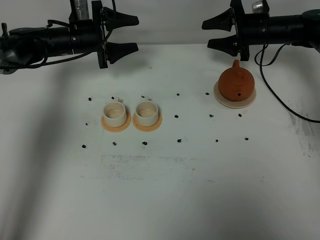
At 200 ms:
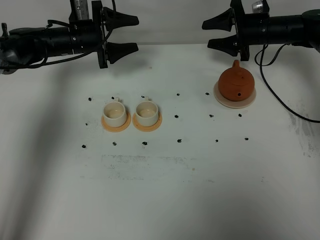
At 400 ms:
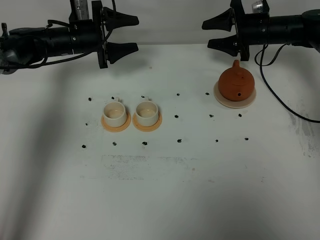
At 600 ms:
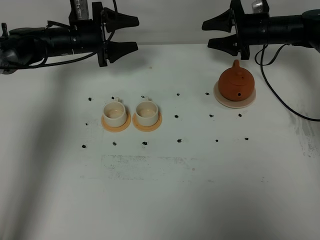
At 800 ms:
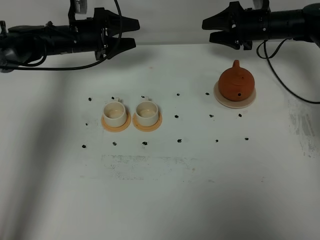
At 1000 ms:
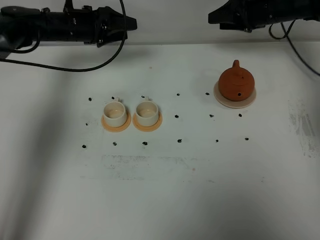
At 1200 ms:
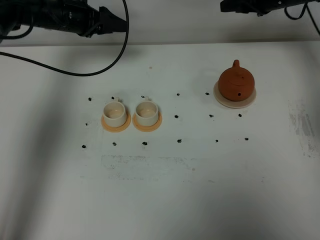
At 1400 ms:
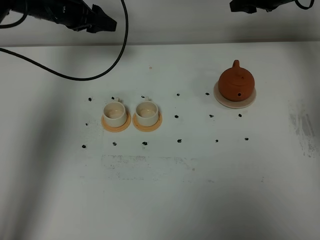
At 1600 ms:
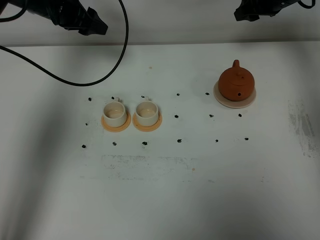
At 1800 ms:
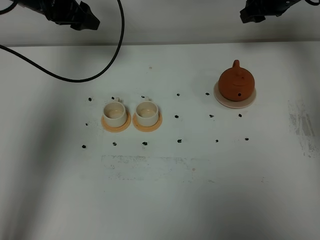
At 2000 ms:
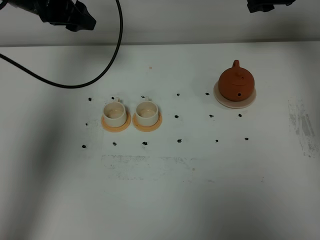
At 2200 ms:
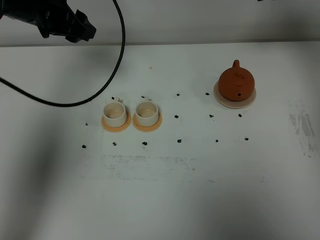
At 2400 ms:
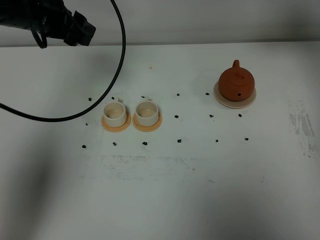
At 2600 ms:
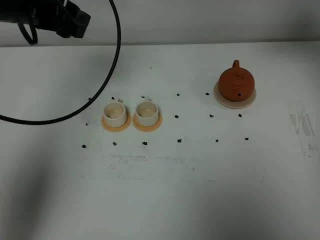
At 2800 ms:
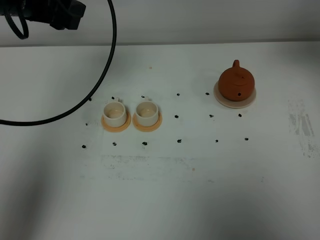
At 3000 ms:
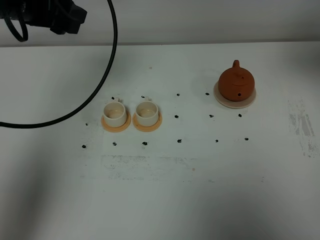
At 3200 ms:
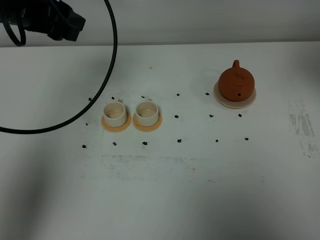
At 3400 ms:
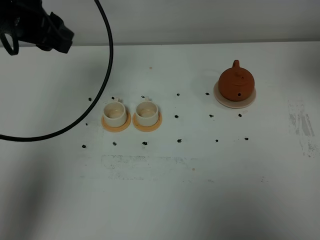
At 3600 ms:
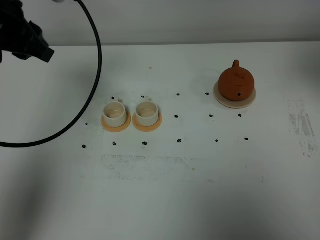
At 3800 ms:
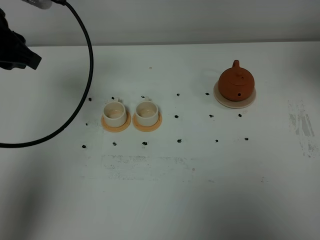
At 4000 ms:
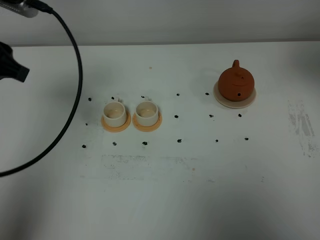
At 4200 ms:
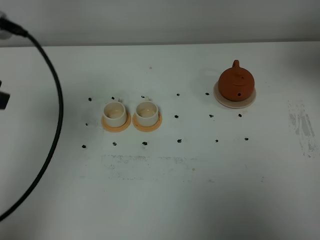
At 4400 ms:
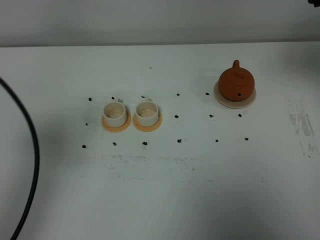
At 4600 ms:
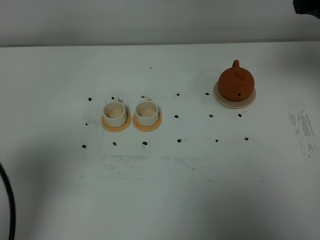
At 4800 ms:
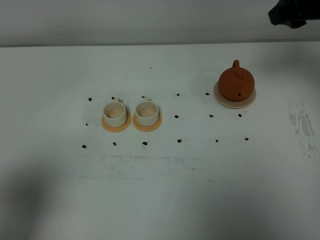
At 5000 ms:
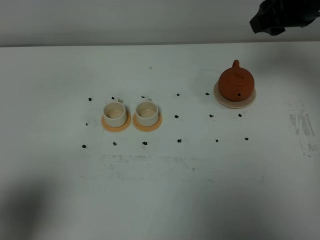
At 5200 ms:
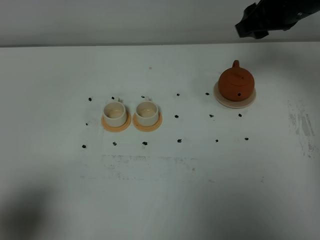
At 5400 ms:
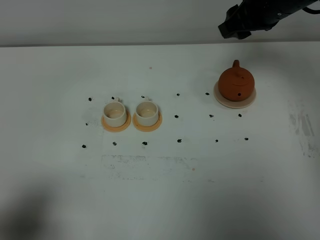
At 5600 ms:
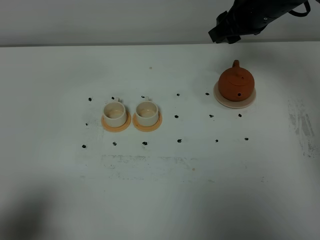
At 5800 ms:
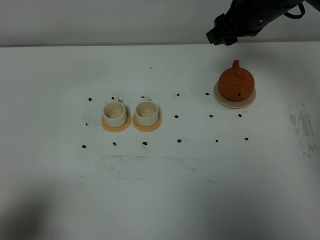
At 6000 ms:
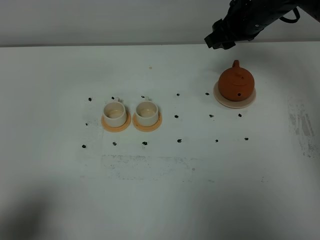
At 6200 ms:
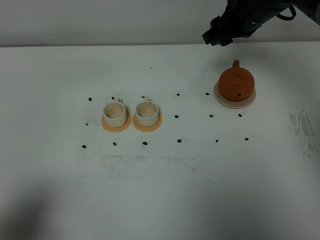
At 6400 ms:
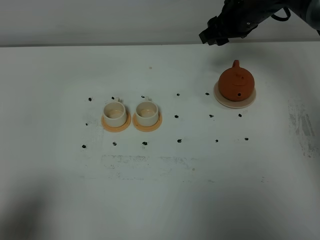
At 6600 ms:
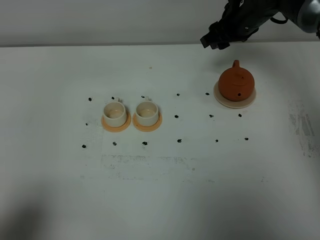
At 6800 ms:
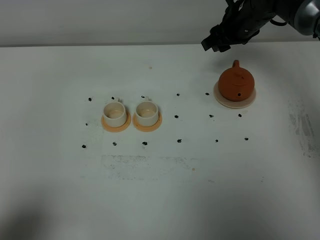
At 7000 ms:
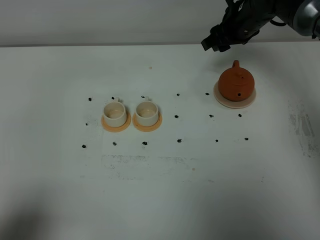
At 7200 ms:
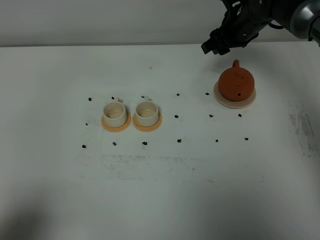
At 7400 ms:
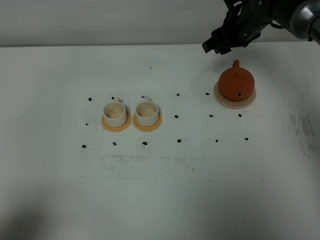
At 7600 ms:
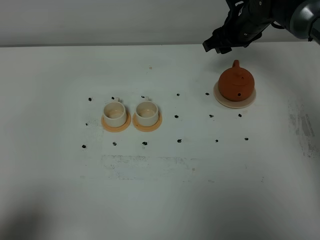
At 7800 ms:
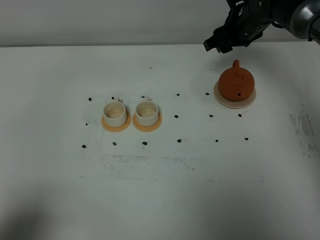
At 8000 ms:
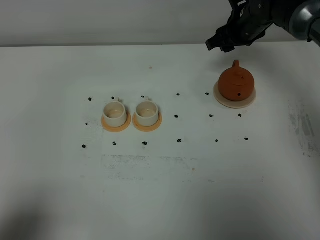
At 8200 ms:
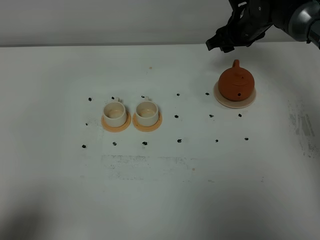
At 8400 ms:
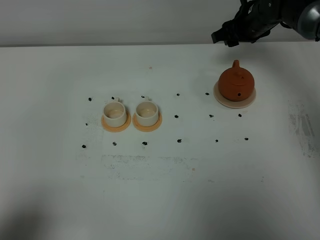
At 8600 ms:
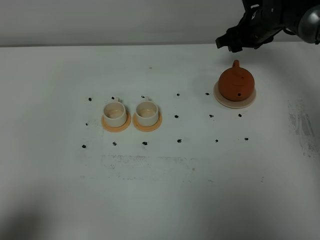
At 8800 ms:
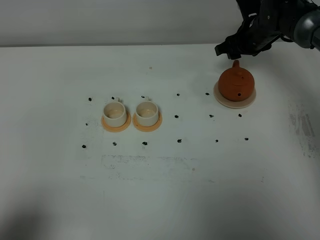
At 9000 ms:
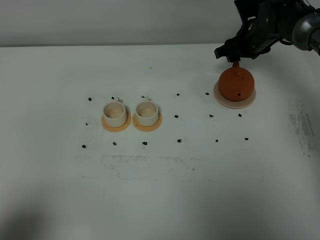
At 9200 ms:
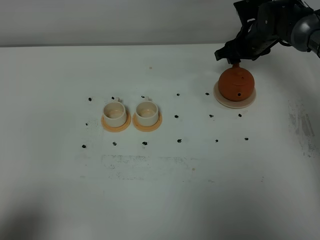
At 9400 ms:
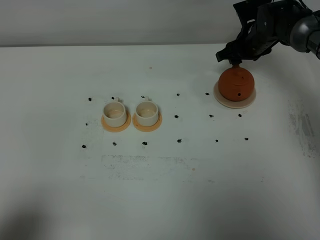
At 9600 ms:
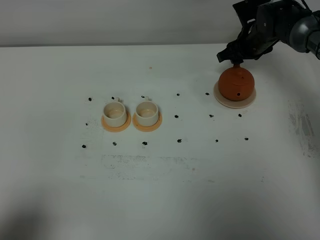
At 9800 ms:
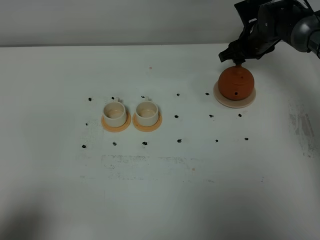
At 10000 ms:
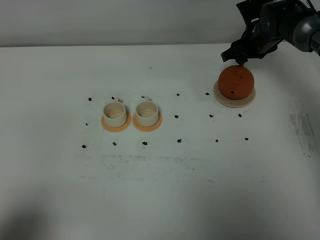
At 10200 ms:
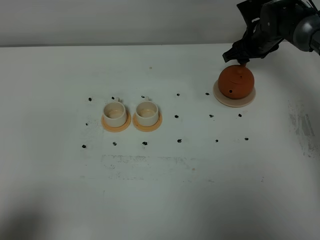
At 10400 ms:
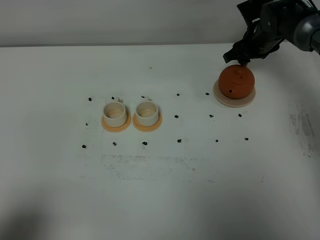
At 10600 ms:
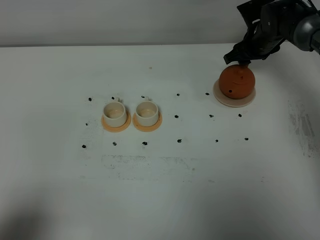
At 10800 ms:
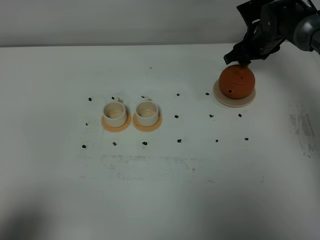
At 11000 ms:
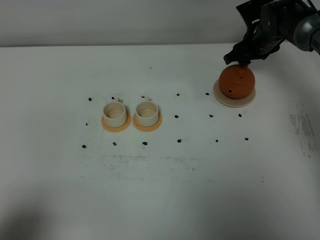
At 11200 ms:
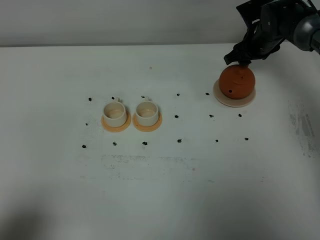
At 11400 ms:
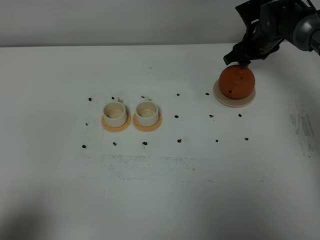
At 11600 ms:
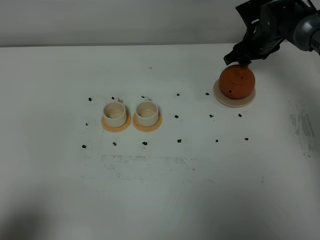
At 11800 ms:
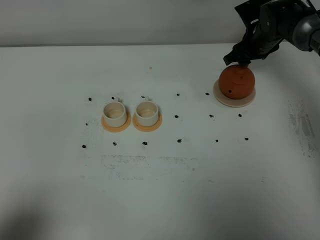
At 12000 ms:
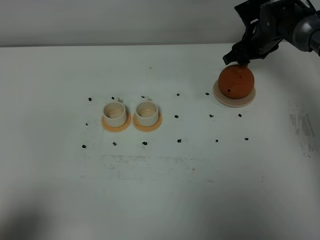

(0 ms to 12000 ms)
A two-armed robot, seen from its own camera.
Task of the whole recording: grasp the brown teapot and pour the tea into the two white teacups one by one, put the brown teapot back in its original place.
0 ms - 1600 ms: The grippers both shift upward by about 10 cm.
1600 ms - 3000 ms: The right gripper is displaced backward and upward by approximately 35 cm. Meanwhile the left gripper travels backward and upward by about 20 cm.
3000 ms - 4400 ms: The left gripper shifts about 20 cm backward, and closes its fingers.
4400 ms - 6000 ms: The right gripper is displaced downward, forward and to the left by some 20 cm; the left gripper travels backward and downward by some 15 cm.
6000 ms - 7600 ms: The right gripper goes about 5 cm downward.
7600 ms - 9000 ms: The right gripper goes about 5 cm downward.
9000 ms - 10400 ms: The grippers move only a little.
10400 ms - 12000 ms: The two grippers keep their place.

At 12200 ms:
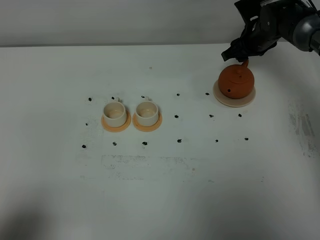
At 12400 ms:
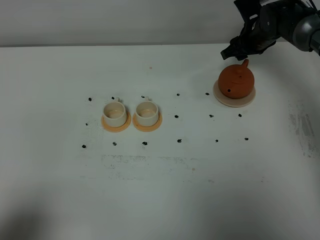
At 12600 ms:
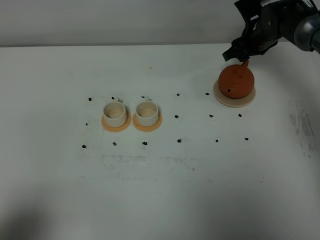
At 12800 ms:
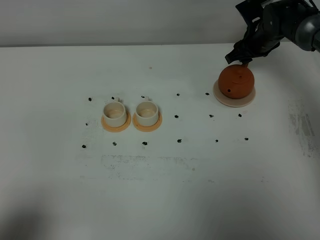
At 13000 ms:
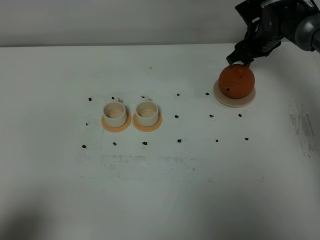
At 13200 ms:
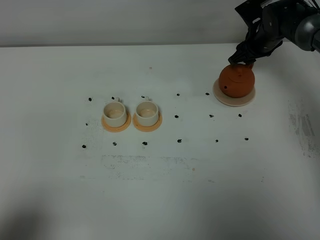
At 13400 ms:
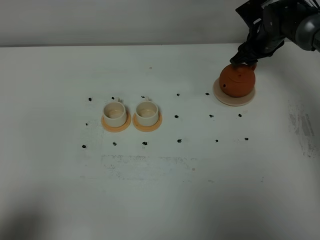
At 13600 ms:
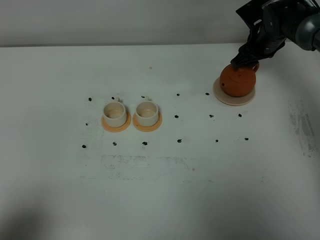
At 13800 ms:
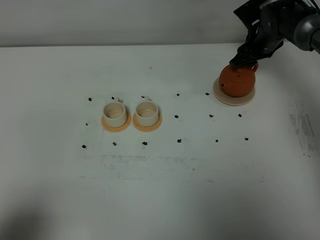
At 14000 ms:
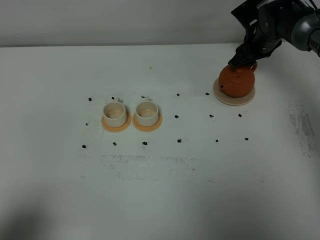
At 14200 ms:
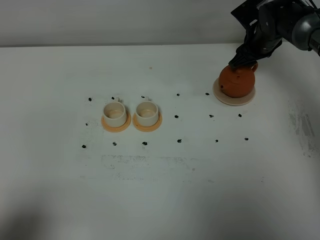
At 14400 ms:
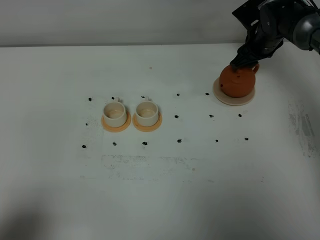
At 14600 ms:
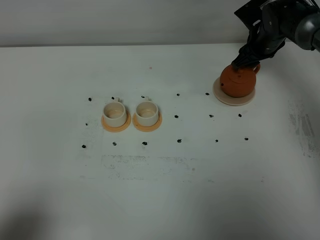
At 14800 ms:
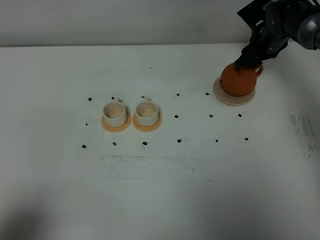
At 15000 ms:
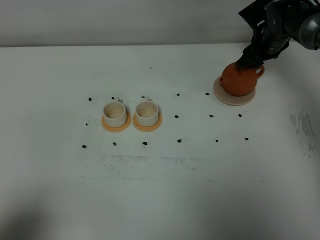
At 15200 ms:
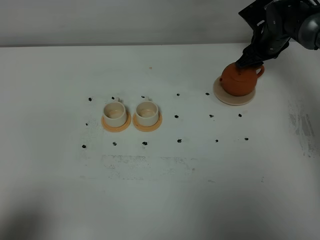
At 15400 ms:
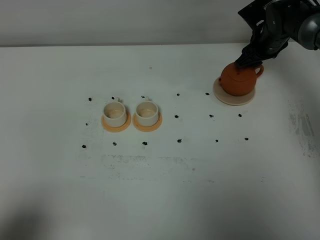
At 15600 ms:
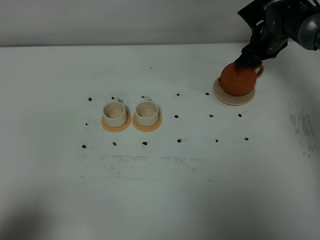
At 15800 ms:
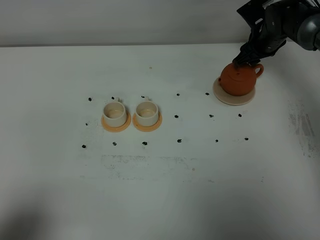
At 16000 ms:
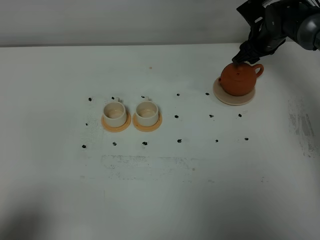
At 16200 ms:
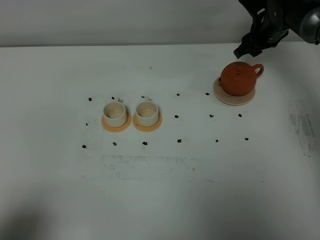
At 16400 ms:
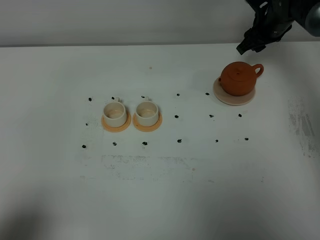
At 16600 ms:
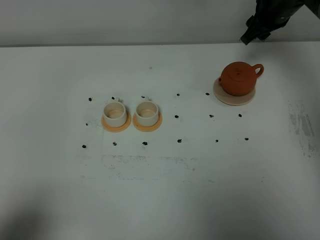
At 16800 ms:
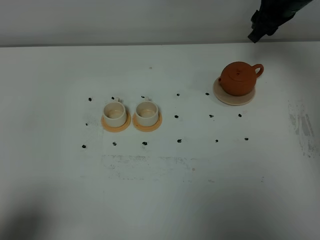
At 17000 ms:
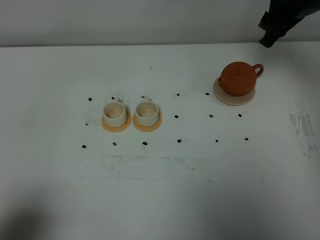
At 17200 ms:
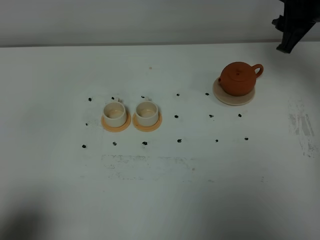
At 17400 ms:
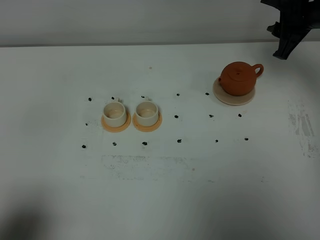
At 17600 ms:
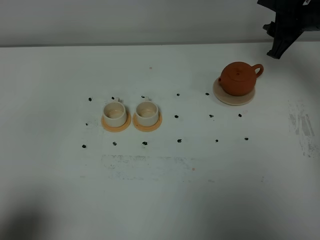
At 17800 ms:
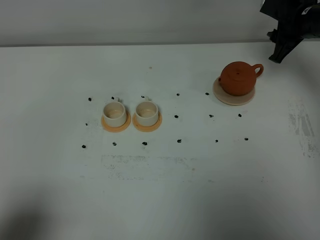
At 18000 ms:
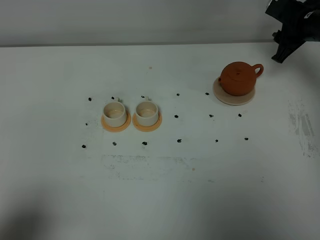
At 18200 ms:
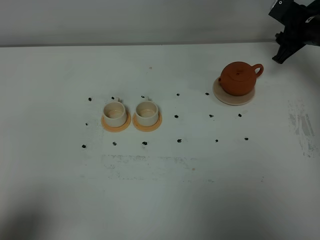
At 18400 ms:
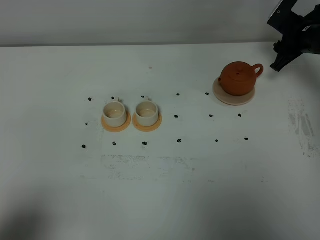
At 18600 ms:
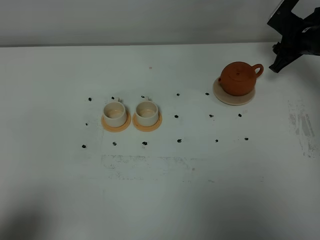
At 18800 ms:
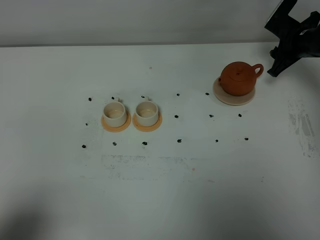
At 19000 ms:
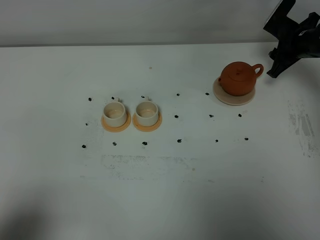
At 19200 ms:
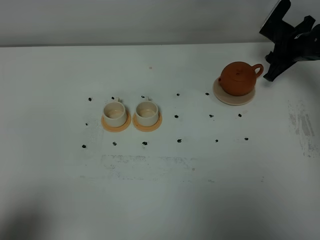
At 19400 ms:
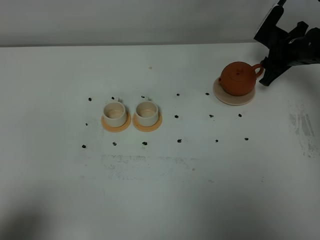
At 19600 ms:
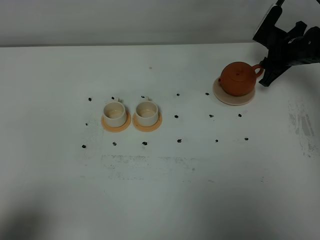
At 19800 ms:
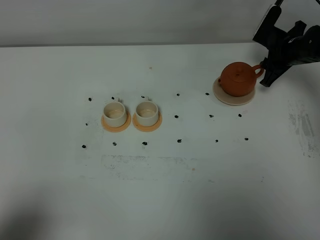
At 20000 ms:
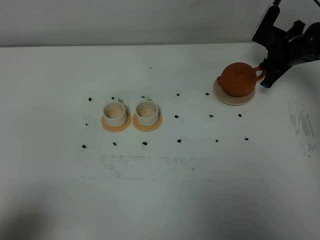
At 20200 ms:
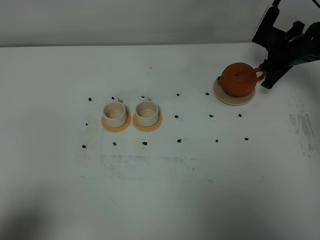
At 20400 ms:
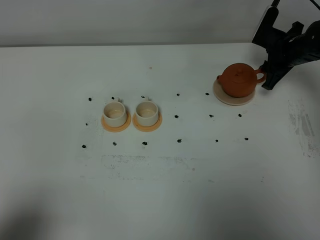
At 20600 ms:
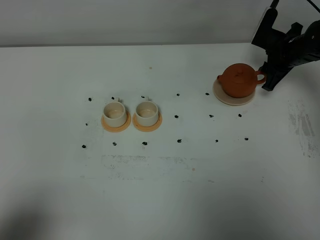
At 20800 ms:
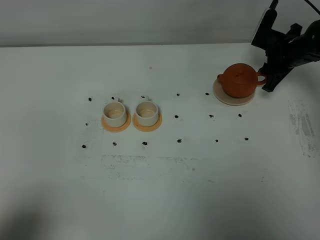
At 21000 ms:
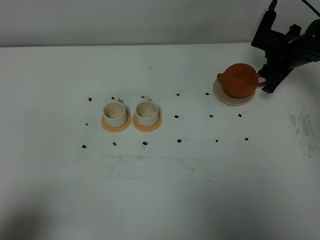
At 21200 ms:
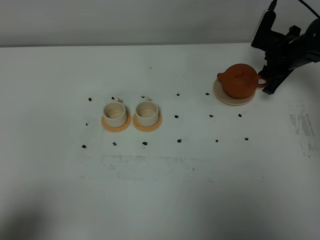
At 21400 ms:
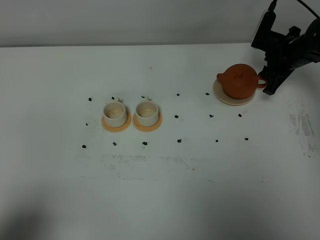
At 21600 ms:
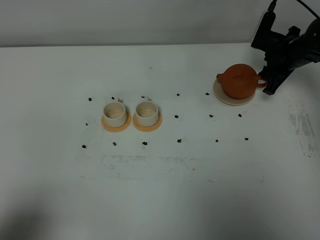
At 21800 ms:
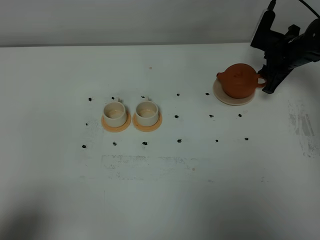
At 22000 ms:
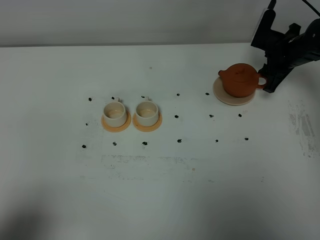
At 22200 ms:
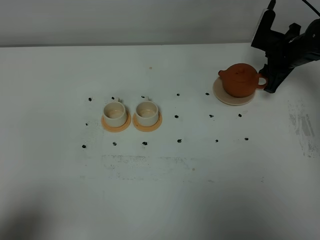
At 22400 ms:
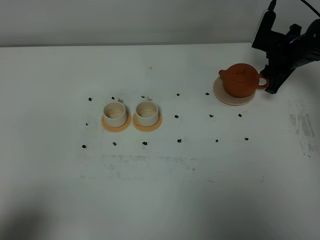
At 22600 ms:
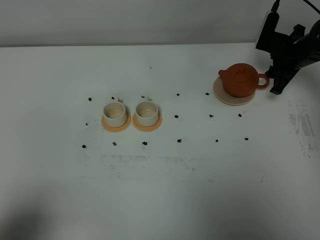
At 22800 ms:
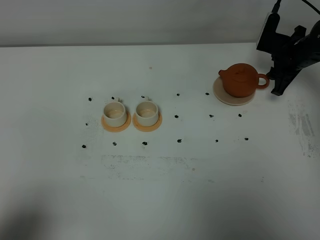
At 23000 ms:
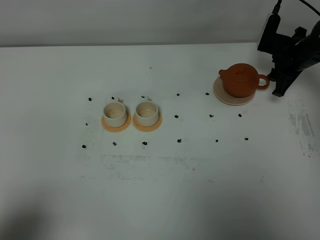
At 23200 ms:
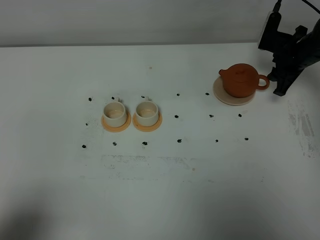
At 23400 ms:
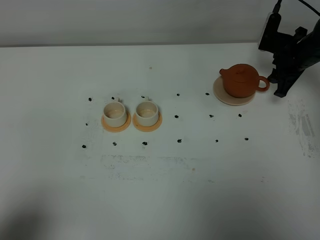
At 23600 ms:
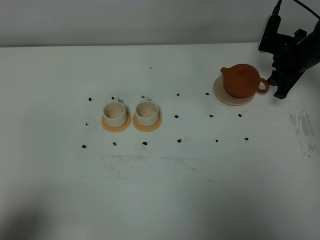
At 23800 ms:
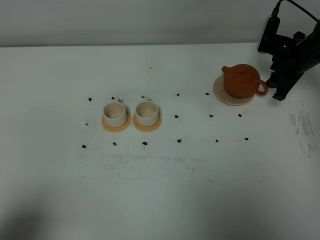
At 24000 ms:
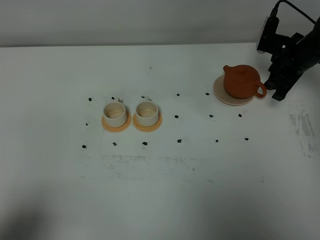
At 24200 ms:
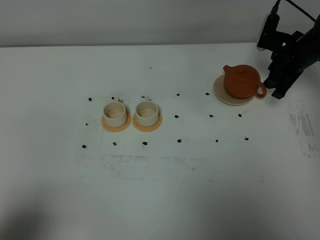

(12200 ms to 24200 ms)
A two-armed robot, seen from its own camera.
Task of the whole recording: grasp the brown teapot and pour the tea into the two white teacups one by one, put the brown teapot back in its original place.
12200 ms - 13800 ms: The grippers make only small movements.
13800 ms - 15200 ms: Both grippers stay put.
15200 ms - 16600 ms: The right gripper shifts roughly 10 cm upward.
16600 ms - 18200 ms: The right gripper moves to the right and downward, some 10 cm.
18200 ms - 19800 ms: The grippers move only a little.
19800 ms - 21200 ms: The grippers move only a little.
21200 ms - 22600 ms: Neither gripper changes place.
22600 ms - 24200 ms: The grippers make only small movements.
